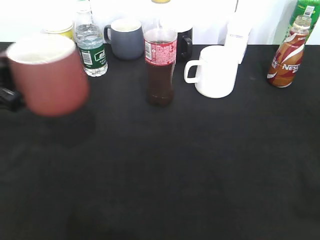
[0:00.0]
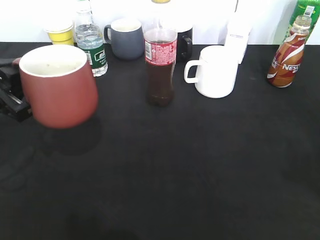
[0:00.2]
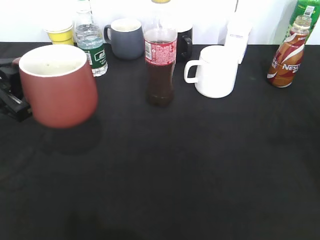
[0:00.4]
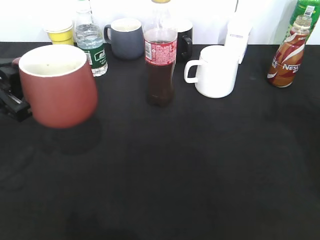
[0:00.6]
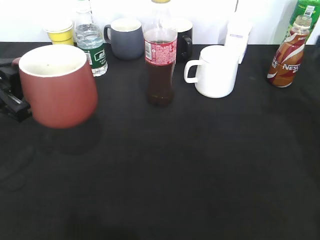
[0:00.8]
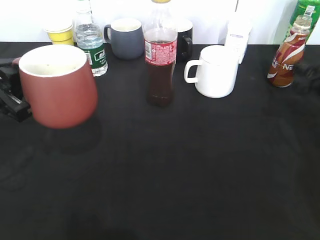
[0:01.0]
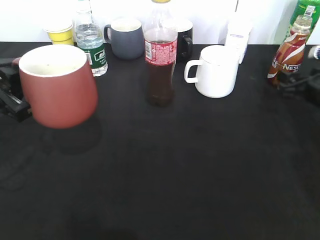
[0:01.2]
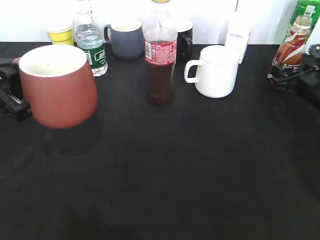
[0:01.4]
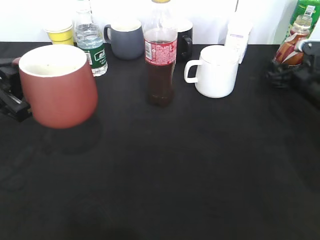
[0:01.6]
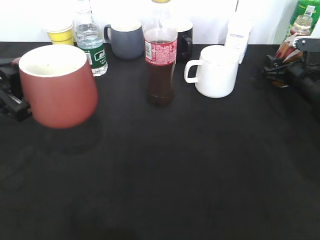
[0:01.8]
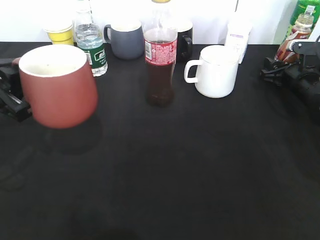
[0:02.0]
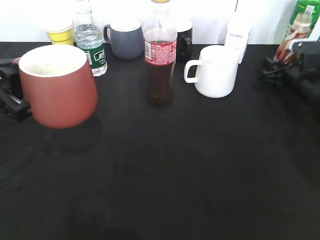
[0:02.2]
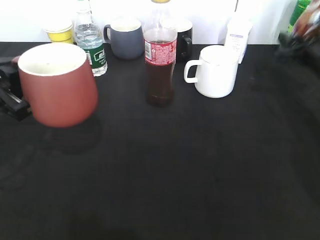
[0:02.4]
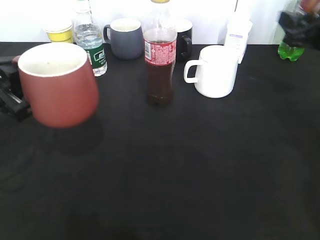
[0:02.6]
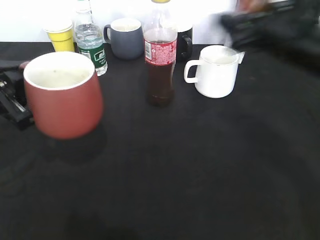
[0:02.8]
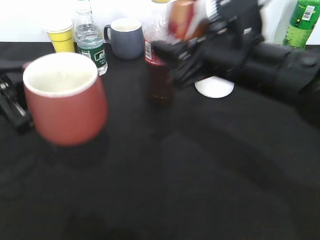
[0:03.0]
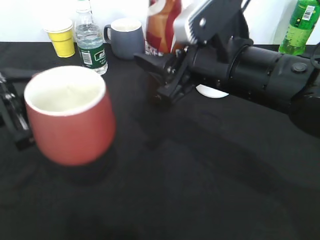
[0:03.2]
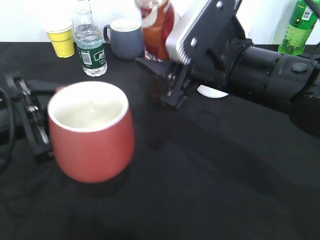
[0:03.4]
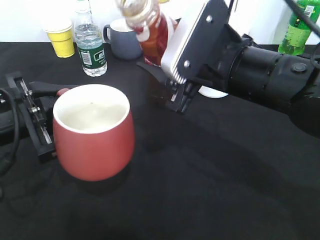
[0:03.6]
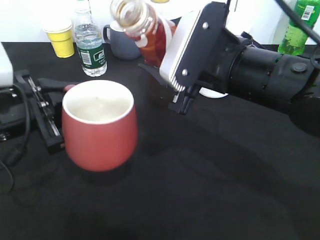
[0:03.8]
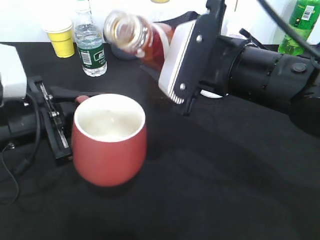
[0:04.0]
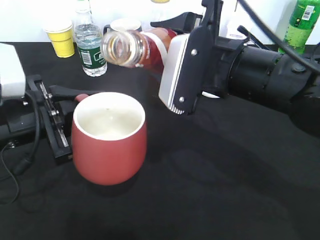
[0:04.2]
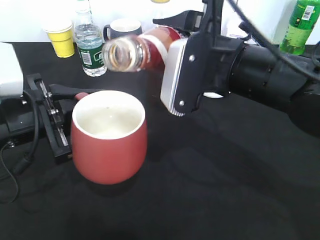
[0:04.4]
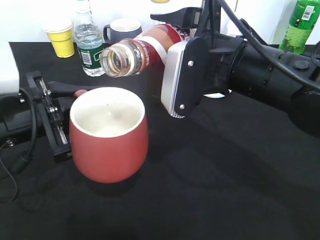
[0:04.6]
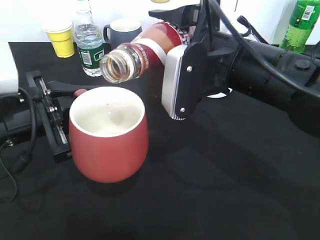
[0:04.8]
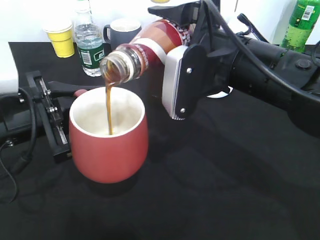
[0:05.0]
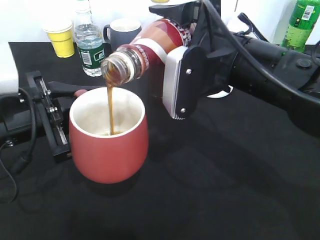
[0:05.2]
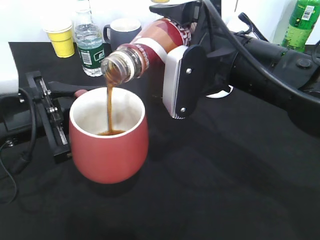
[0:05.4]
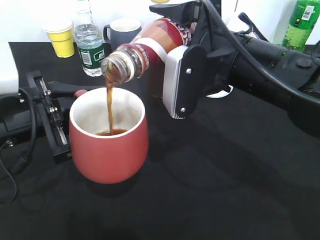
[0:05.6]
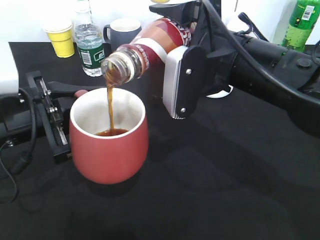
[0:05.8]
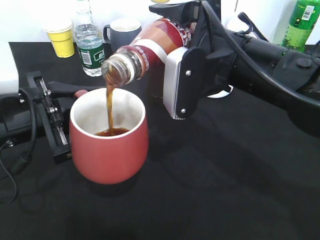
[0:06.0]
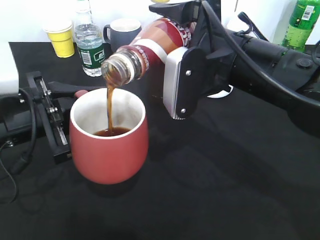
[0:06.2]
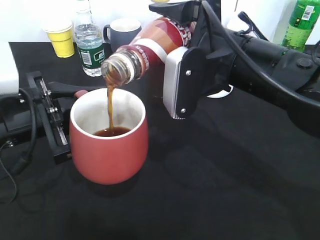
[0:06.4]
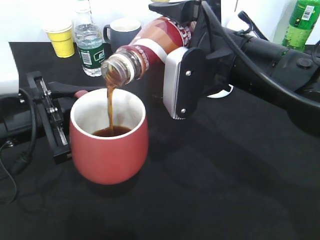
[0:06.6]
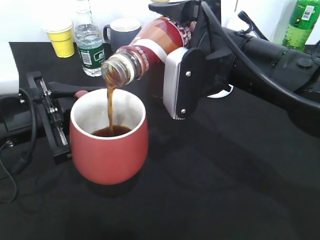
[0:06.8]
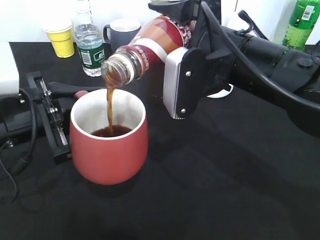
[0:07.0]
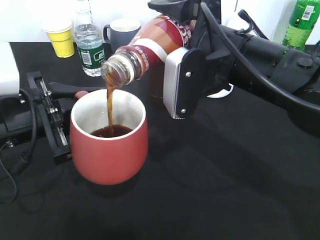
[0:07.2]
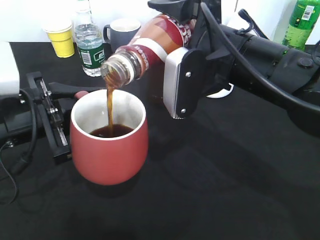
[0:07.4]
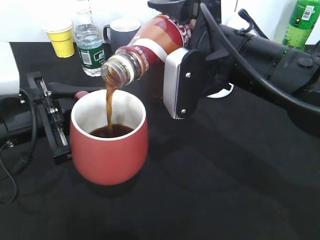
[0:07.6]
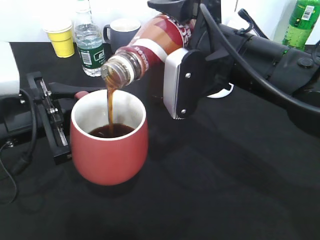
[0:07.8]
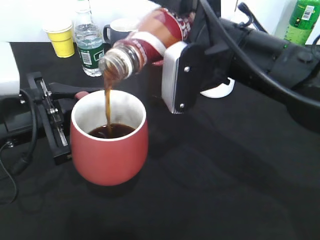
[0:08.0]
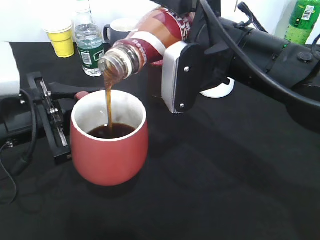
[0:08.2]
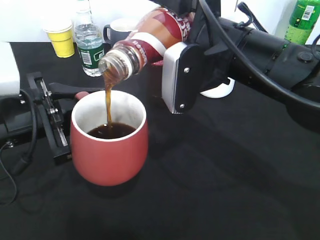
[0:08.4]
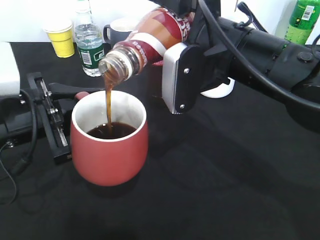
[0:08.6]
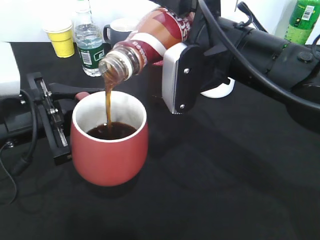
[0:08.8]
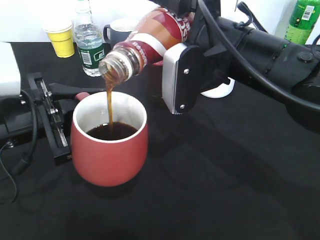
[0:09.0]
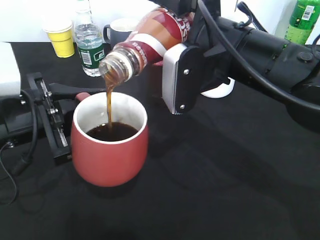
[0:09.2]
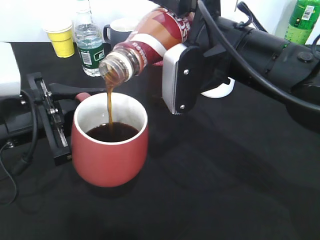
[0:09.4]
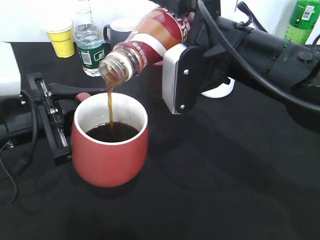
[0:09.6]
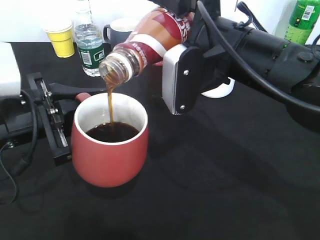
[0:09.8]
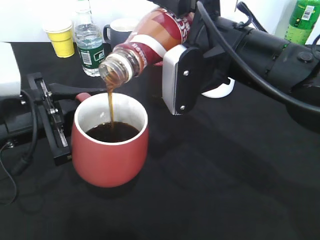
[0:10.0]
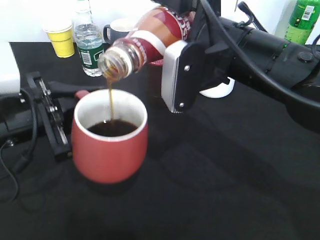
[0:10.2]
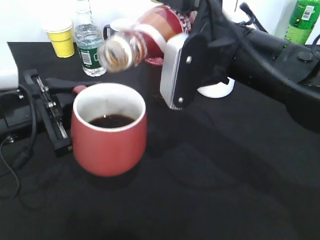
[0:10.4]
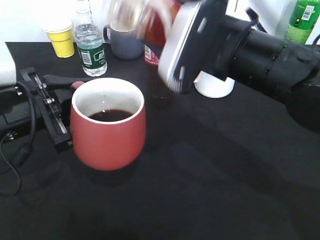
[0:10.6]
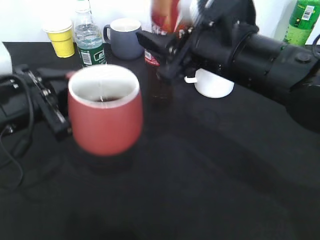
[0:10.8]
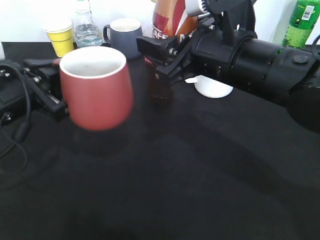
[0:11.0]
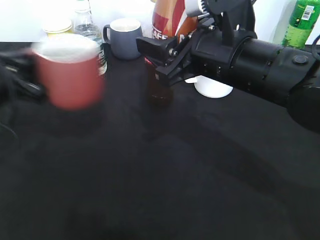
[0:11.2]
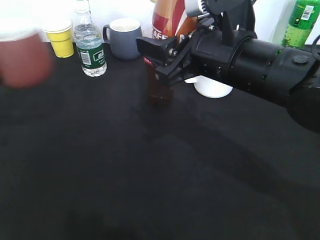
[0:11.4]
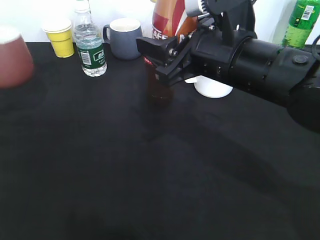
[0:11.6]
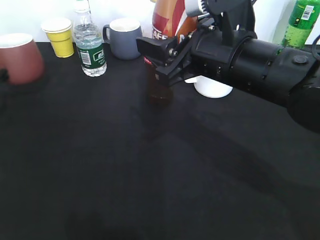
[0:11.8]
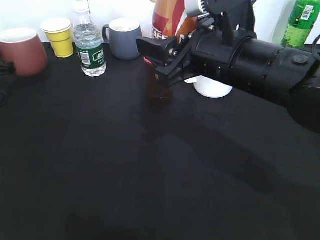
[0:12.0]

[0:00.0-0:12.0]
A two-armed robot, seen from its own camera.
Step, 0:00.8 to 0:02.0: Grasp the bottle with coffee with right gripper.
Step, 0:02.2 to 0:10.4: Pour the coffee from bottle to cup with right gripper.
0:00.0 to 0:01.6: The right gripper goes some 40 cm forward and downward, and opens its fingers.
0:01.6 to 0:03.0: The right gripper is displaced to the left, backward and upward by roughly 30 cm, and closes.
0:03.0 to 0:04.4: The left gripper moves to the right, roughly 5 cm.
0:04.4 to 0:06.0: The grippers move only a little.
0:06.0 to 0:07.6: Both grippers stay put.
0:07.6 to 0:09.0: Both grippers stay about where they are.
0:09.0 to 0:10.4: There are only small adjustments of the grippers.
0:10.4 to 0:12.0: The left gripper shifts approximately 30 cm forward and to the left.

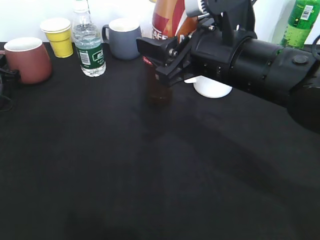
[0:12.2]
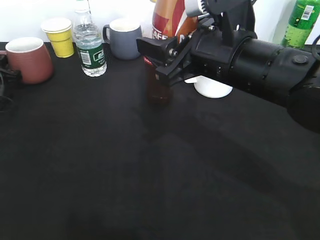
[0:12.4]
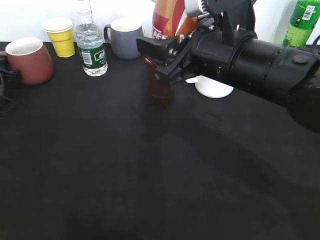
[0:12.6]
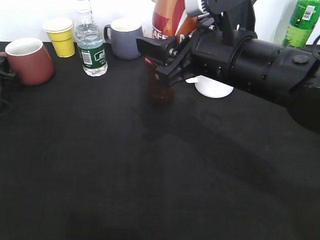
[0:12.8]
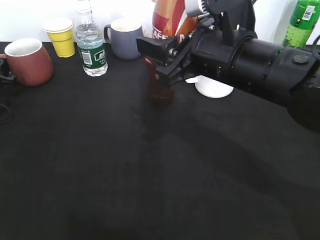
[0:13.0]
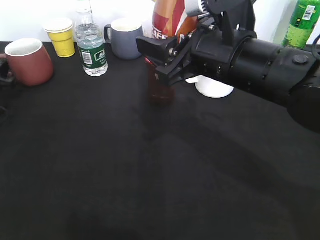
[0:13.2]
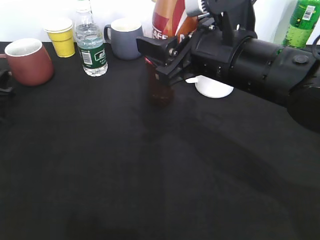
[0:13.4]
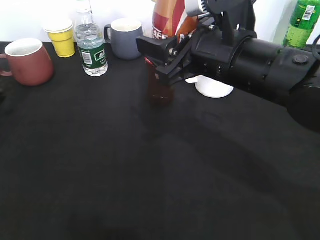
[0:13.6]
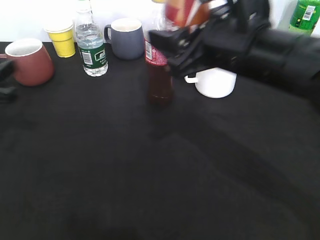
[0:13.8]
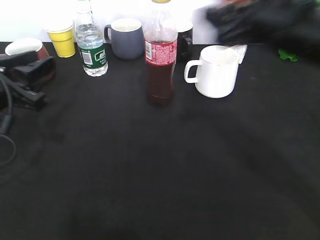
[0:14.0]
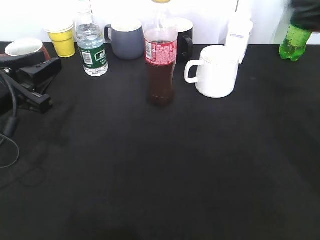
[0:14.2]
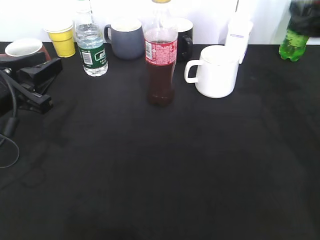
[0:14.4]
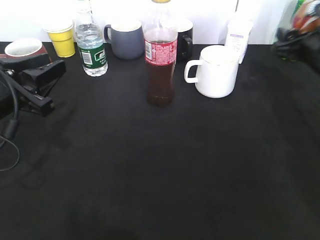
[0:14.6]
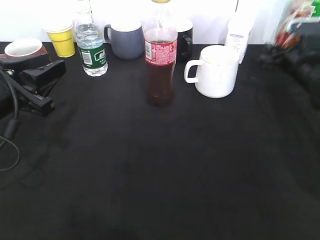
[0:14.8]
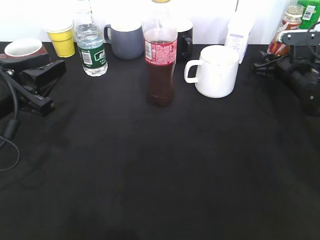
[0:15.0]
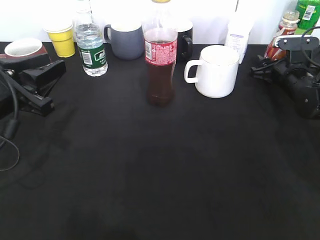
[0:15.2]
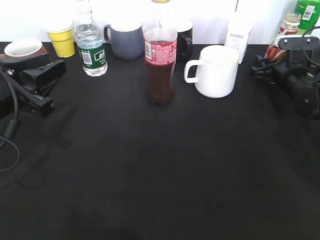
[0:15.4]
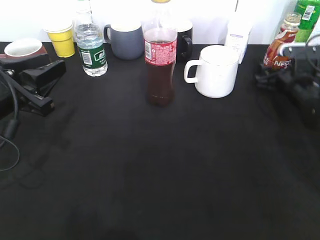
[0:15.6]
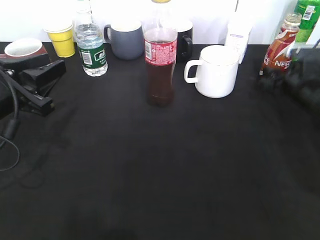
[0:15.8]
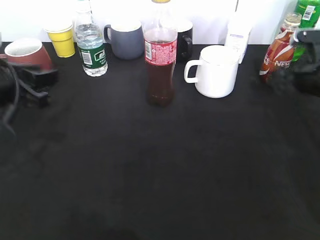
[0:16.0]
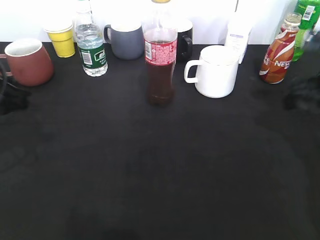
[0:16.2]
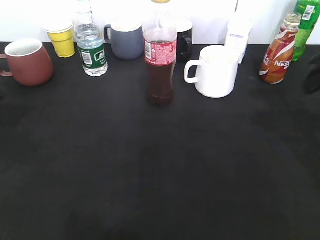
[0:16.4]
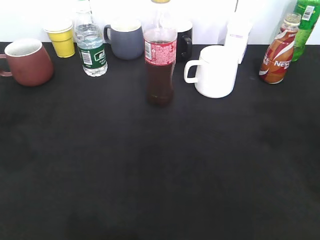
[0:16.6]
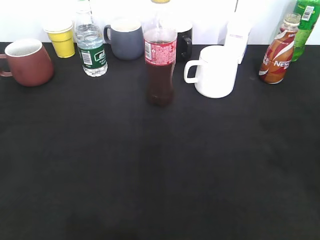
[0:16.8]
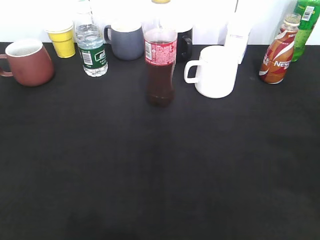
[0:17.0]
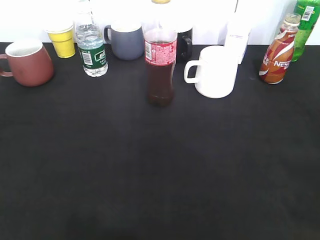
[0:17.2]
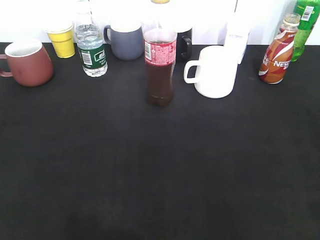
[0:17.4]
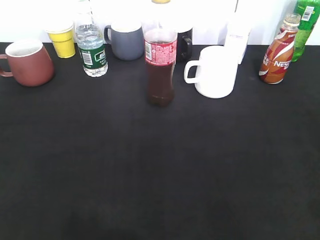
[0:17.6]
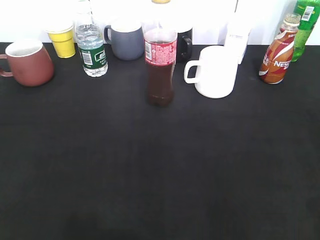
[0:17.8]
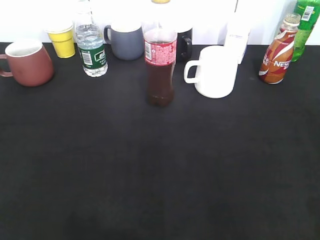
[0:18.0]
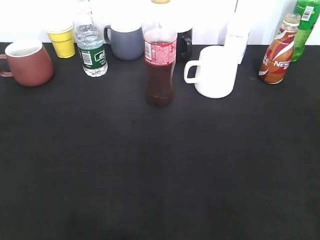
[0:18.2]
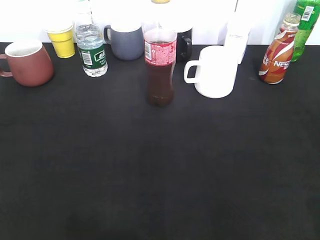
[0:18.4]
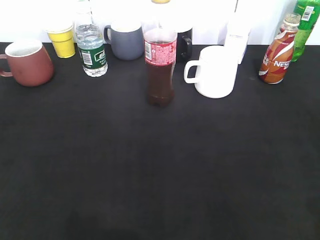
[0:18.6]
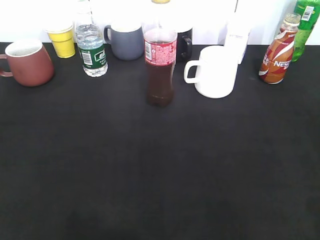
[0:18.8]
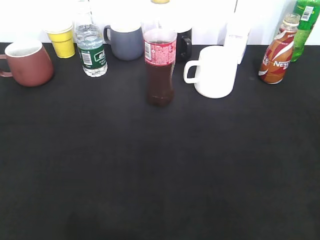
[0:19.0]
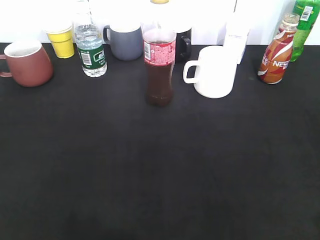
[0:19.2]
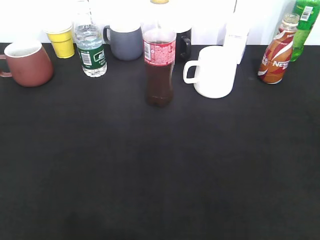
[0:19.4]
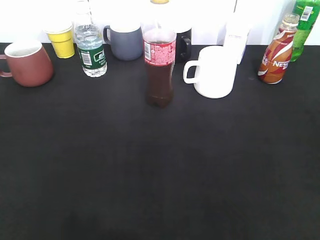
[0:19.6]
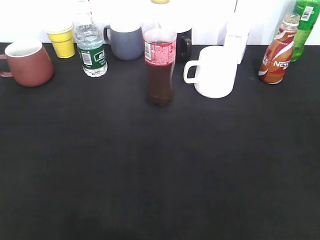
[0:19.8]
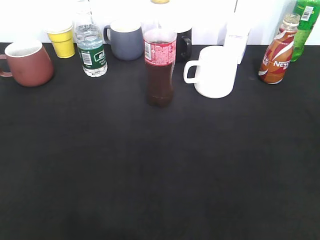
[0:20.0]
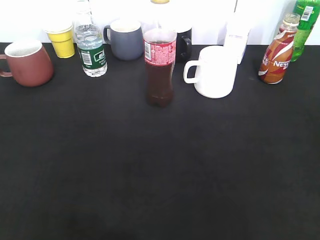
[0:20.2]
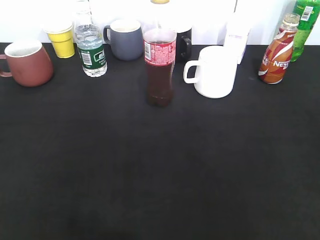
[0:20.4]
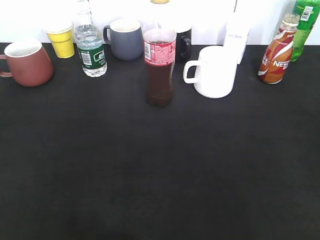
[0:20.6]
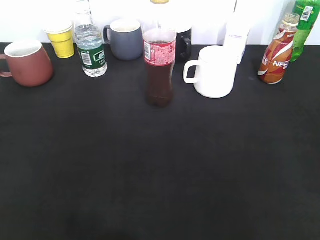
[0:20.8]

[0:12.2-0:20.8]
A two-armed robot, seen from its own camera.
Step, 0:12.8 to 0:15.2: Place the coffee bottle on the table with right gripper.
0:12.2 to 0:13.6: The left gripper travels backward by about 10 cm, and opens.
0:13.6 to 0:15.0: The right gripper travels to the right, forward and downward by approximately 30 cm. The left gripper goes about 15 cm to the right, backward and upward.
0:15.0 to 0:16.6: The left gripper travels upward by roughly 10 cm, and opens its fingers, while the right gripper goes roughly 30 cm upward and backward, and opens its fingers.
0:16.6 to 0:18.0: The two grippers go about 20 cm backward.
0:18.0 to 0:19.4: There are only small adjustments of the grippers.
